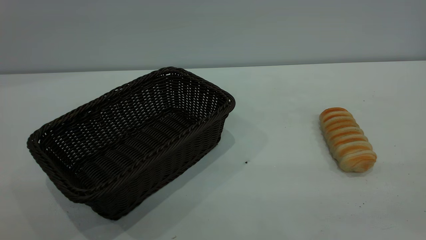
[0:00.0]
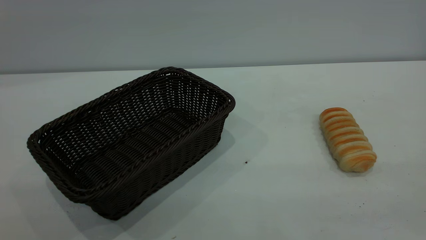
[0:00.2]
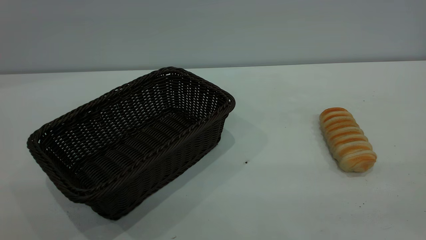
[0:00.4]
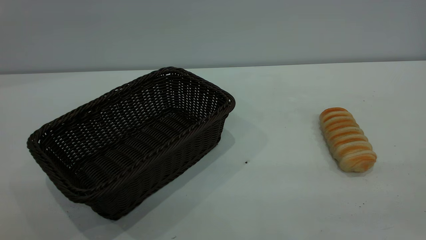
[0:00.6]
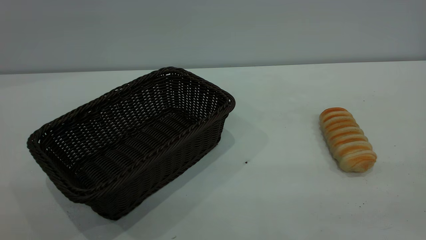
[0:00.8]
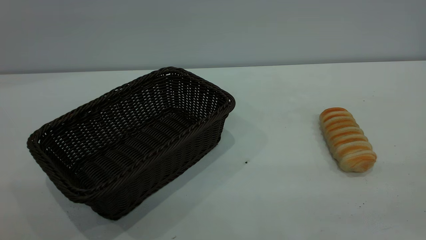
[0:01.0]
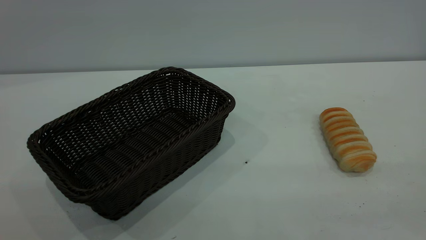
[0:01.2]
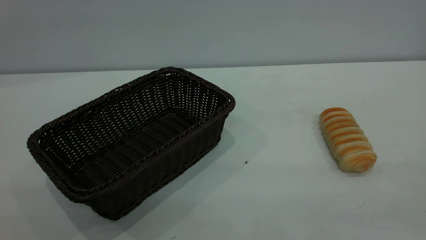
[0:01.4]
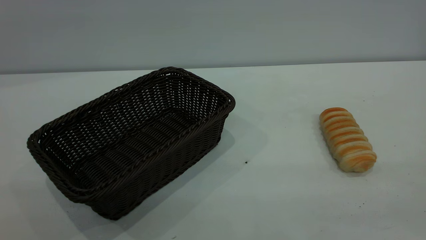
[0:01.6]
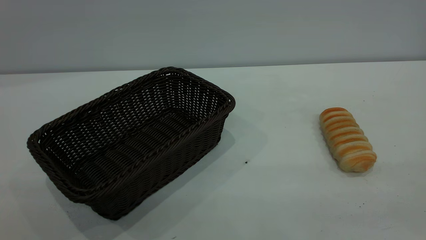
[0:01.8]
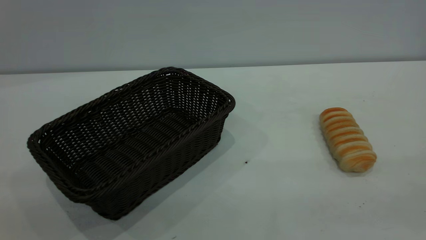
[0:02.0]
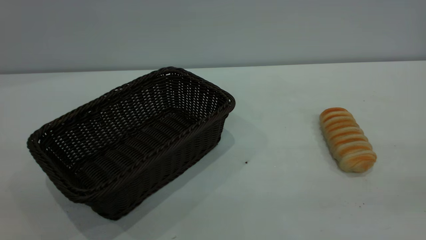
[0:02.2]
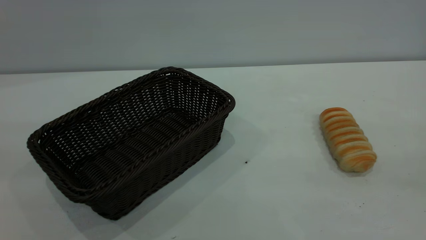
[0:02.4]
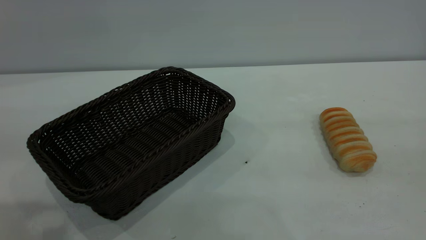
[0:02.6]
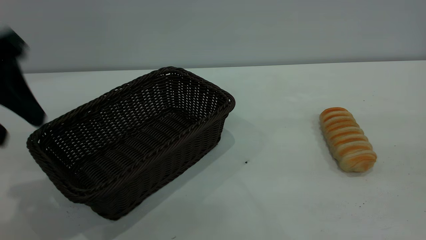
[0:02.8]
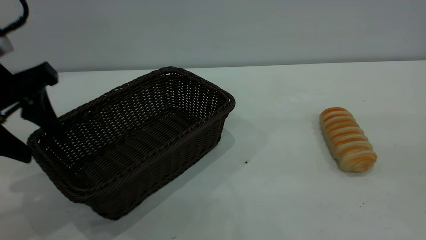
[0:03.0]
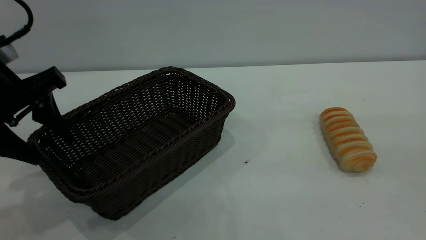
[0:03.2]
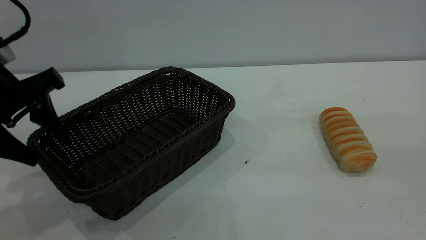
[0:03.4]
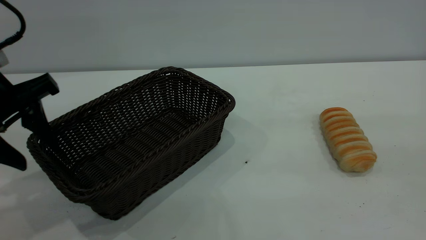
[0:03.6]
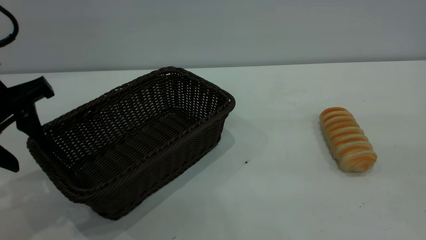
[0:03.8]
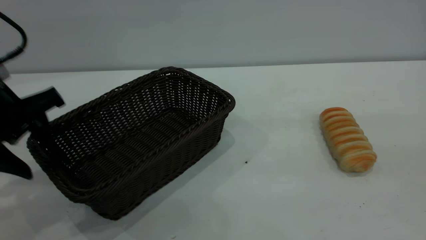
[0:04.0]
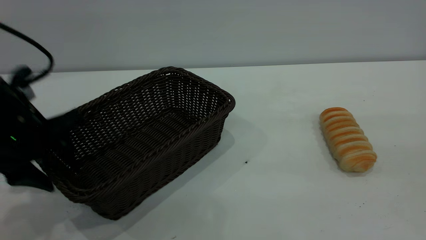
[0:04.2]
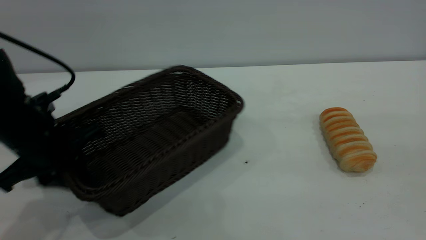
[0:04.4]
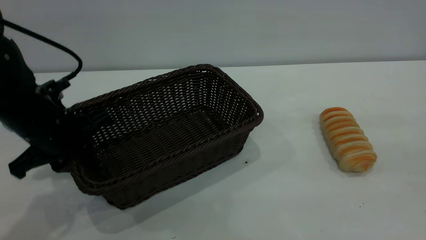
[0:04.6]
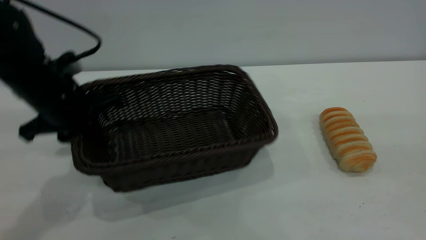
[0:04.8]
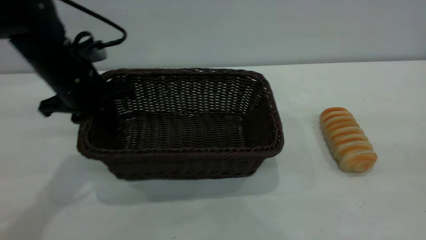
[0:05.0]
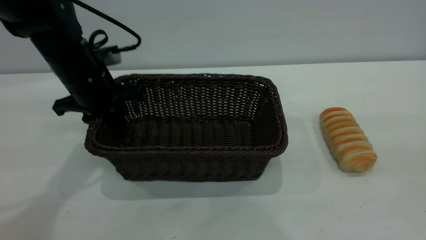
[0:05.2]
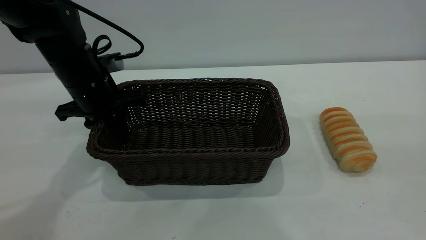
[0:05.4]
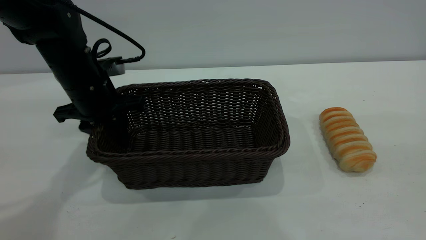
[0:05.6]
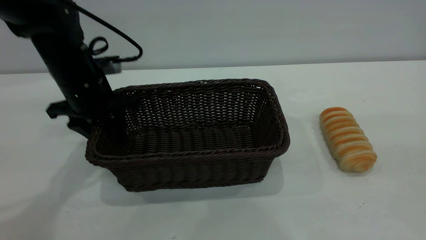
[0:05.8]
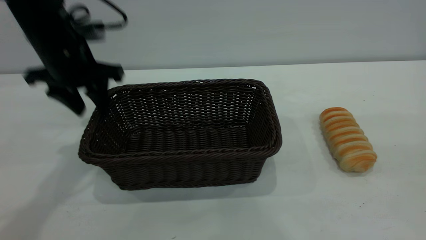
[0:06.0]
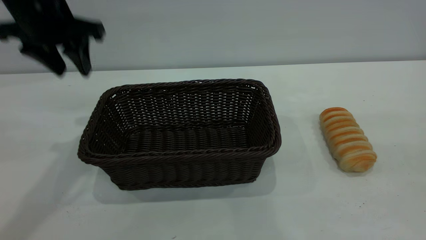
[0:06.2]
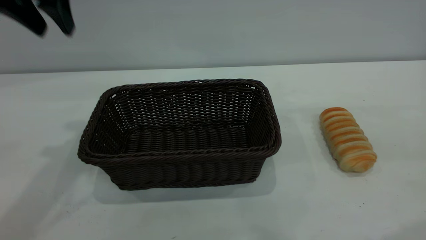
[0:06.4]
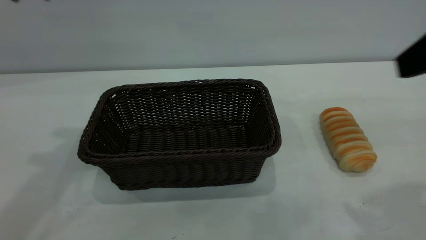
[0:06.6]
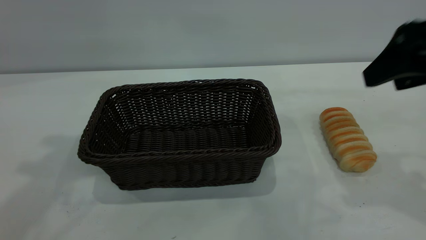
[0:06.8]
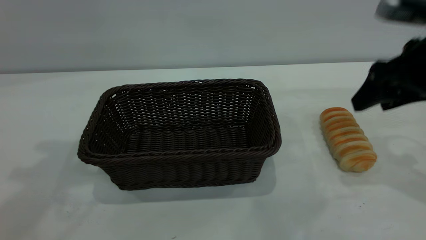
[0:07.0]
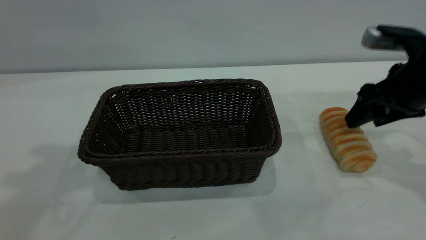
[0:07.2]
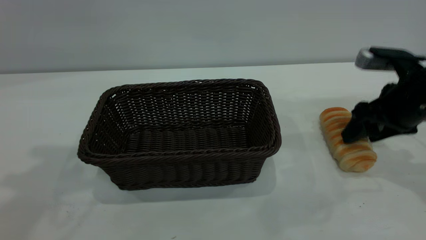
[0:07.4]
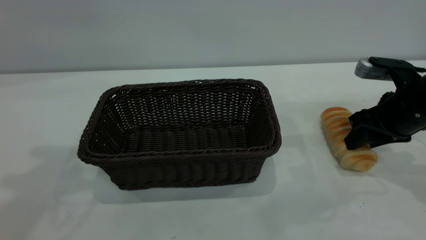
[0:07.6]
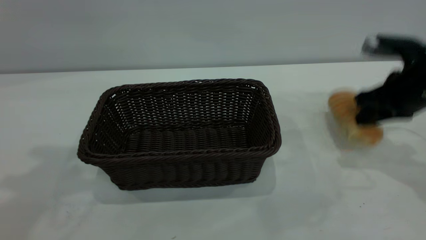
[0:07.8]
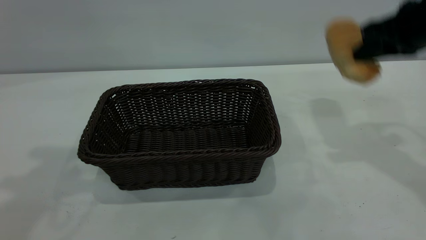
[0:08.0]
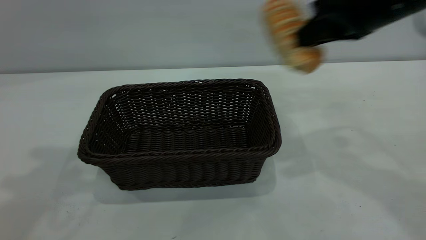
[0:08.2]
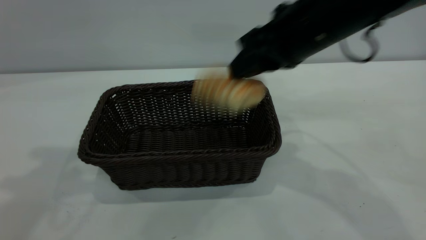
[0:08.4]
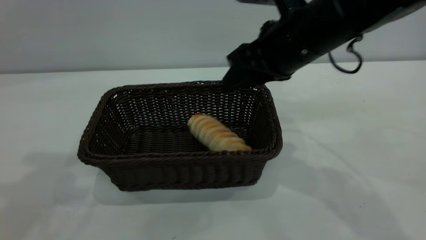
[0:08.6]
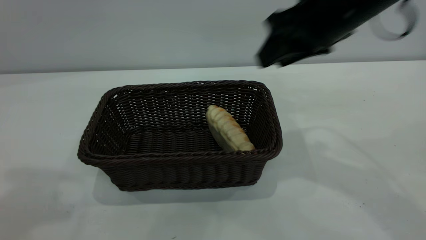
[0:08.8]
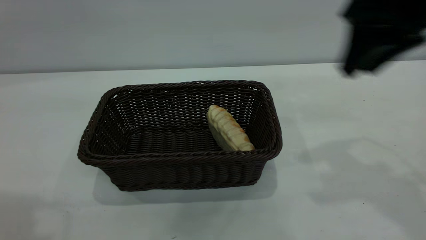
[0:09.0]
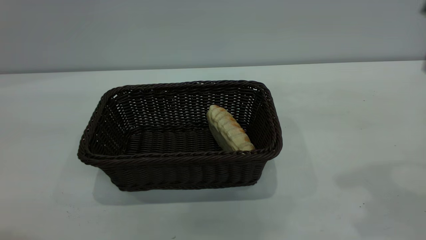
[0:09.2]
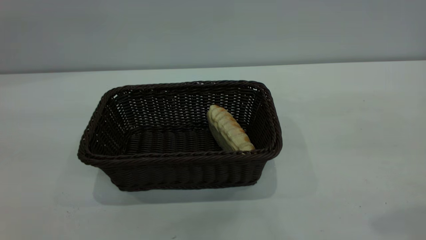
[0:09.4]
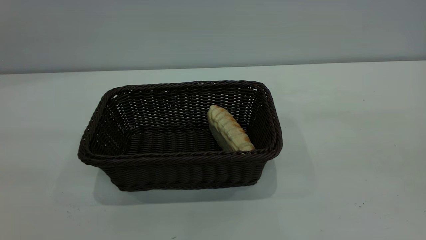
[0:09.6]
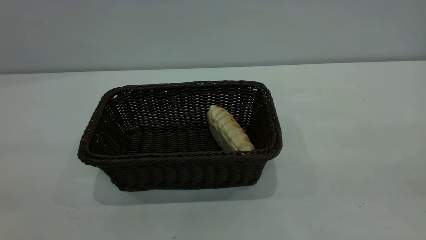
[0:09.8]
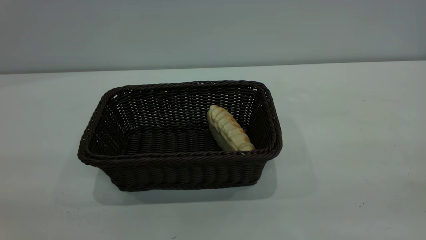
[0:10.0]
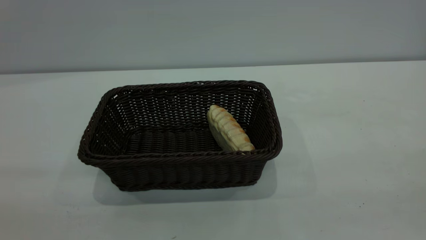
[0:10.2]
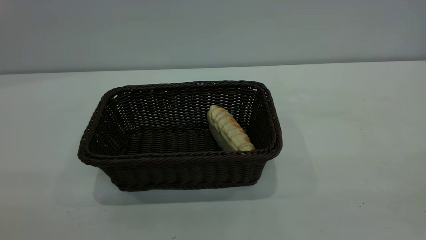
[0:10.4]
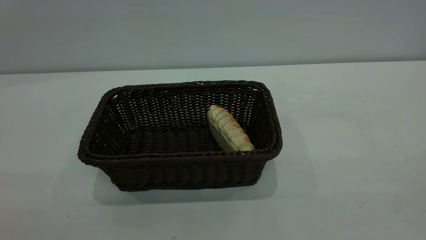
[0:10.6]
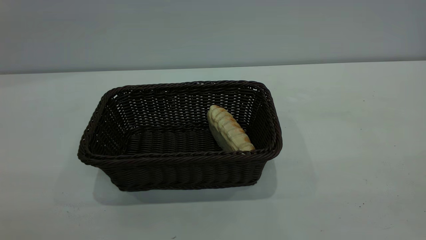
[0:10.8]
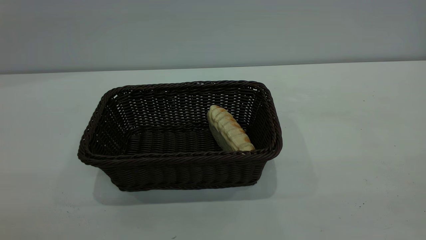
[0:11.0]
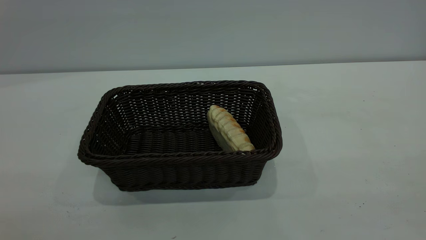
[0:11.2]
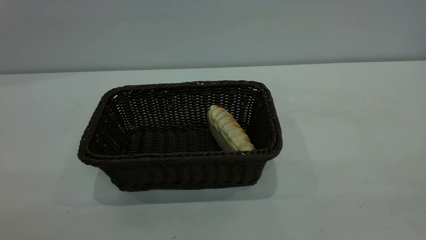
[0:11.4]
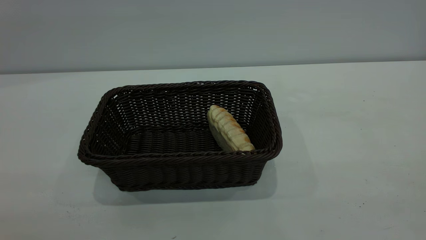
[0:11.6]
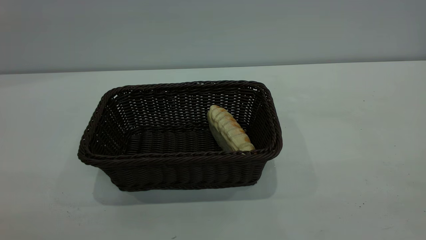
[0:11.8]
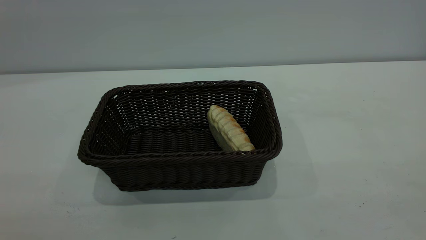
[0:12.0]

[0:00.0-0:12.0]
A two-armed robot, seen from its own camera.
Task of the whole recording: One hand grasps the black basket and places it in the middle of the table, while the other hand picks up the long bread and puts it into the black basket.
Step, 0:00.0 to 0:06.0: Move the basket to the center of view.
Step, 0:08.0 to 0:08.8: place the bread into the basket.
0:00.0 to 0:01.6: Both grippers stay put.
0:01.6 to 0:03.0: The left gripper moves forward and downward, approximately 30 cm.
0:03.0 to 0:04.4: The left gripper travels downward by some 10 cm, and closes its fingers.
0:04.4 to 0:06.0: The left gripper shifts roughly 15 cm forward and upward, and opens up.
0:06.0 to 0:07.6: The left gripper travels upward and backward by about 25 cm. Meanwhile the right gripper goes some 35 cm downward and forward, and closes up.
0:07.6 to 0:09.0: The right gripper goes about 20 cm upward, and closes, then opens again; the left gripper heads backward, covering about 10 cm.
0:09.0 to 0:10.4: The right gripper is displaced backward by roughly 30 cm.

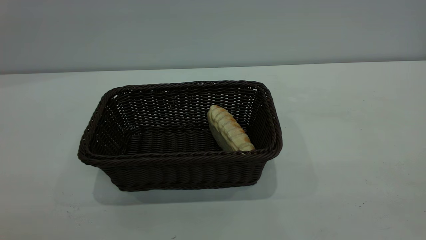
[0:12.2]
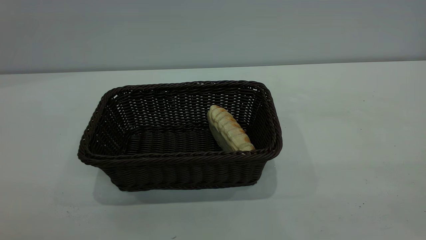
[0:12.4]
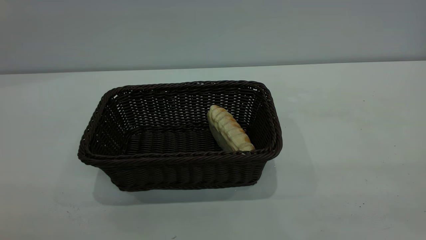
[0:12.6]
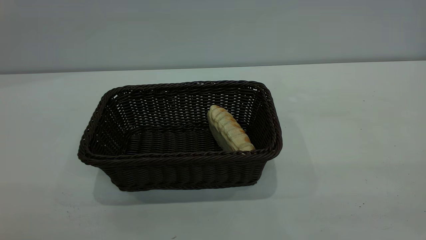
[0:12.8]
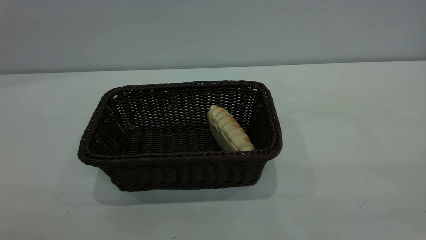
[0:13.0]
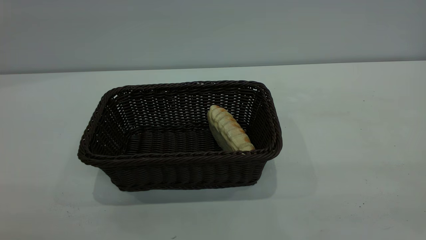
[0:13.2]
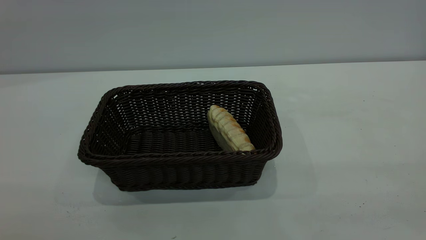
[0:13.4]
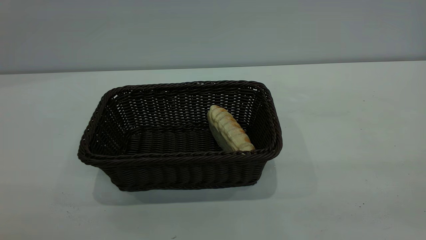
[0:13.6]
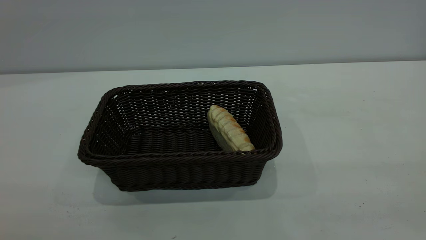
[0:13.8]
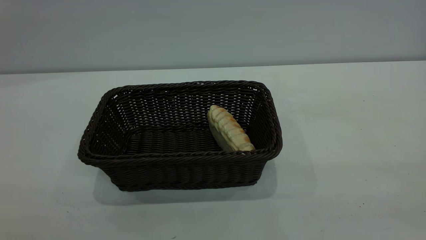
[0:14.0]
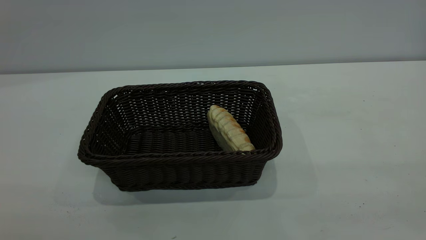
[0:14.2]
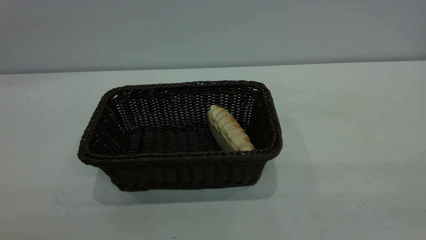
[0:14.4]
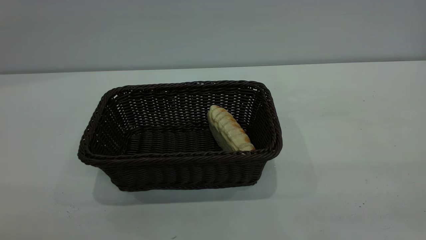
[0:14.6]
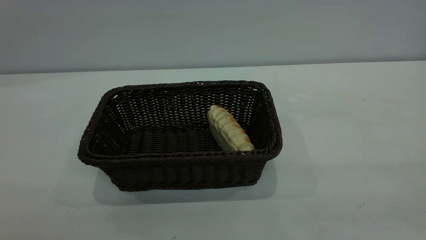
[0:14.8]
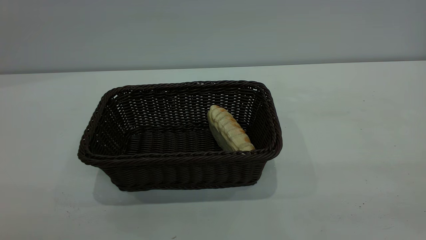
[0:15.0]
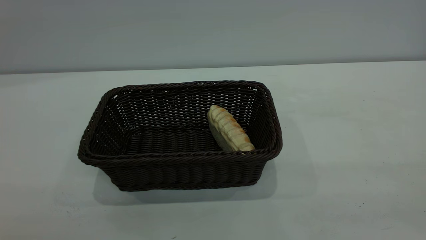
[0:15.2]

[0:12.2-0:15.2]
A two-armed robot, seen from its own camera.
Task of the whole recording: One hand grasps the black basket and places it in the middle of the table, while the other hand picks up the long bread and puts it into the black basket.
0:13.8 to 0:15.2: Both grippers stay put.

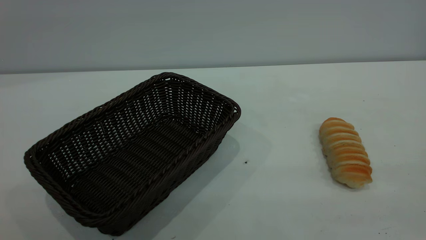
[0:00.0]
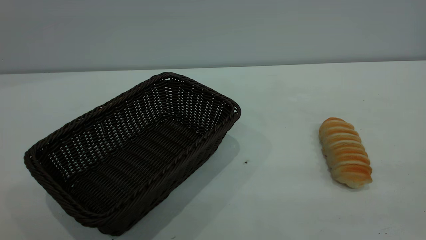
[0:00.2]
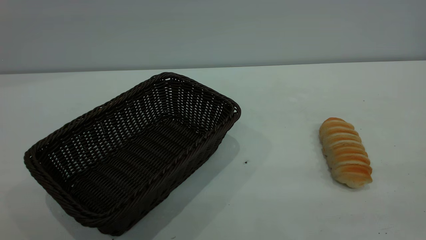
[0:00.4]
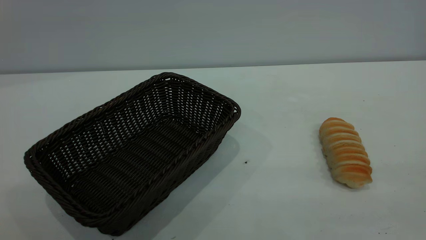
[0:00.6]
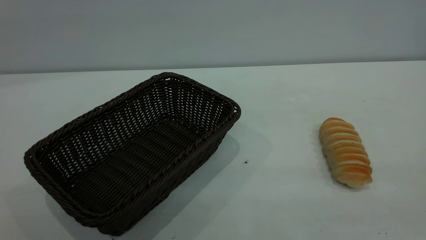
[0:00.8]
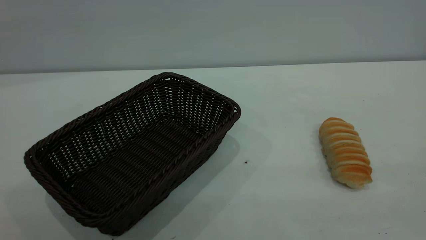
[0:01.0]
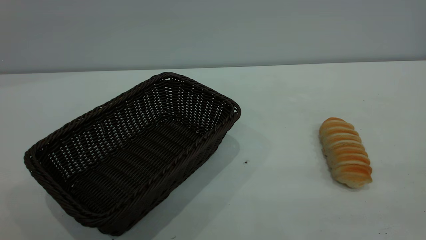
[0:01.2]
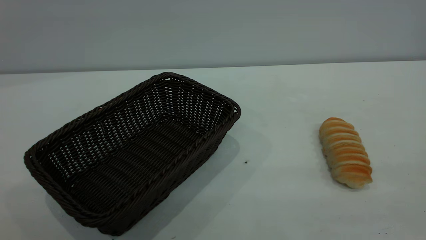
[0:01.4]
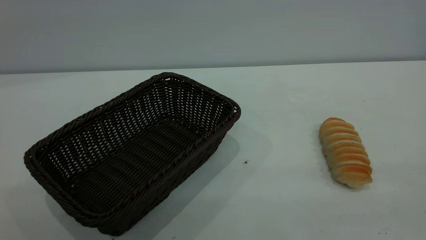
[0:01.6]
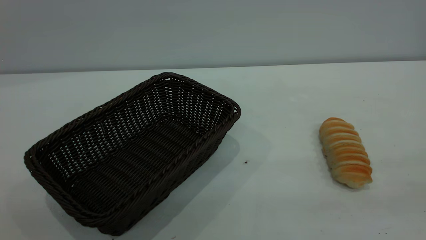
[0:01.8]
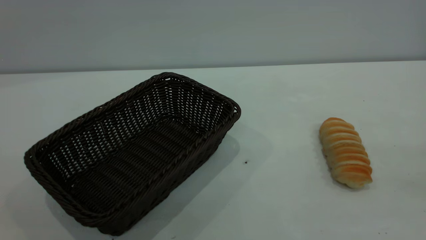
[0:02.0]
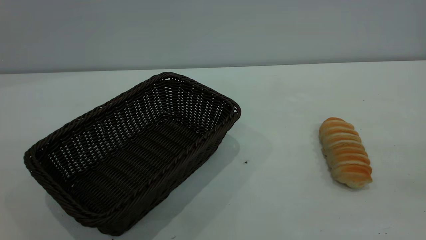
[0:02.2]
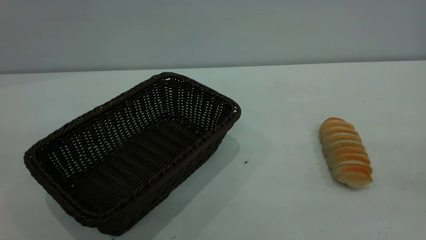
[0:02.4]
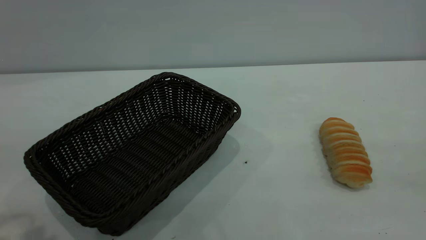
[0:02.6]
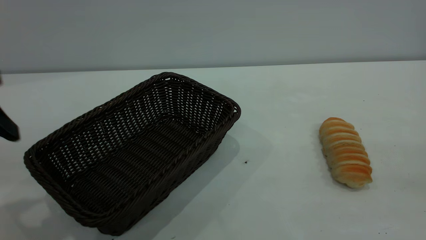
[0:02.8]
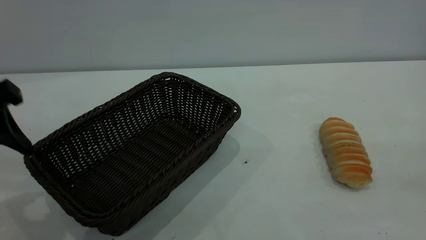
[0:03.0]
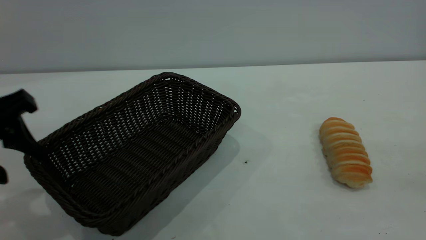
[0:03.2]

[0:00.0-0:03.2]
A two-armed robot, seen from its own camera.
Task of the whole recording: One hand grasps the black basket and places it in the middle of the table, while the other hand picks up the long bread and puts it into the black basket.
0:01.6 to 0:03.2: The left gripper travels forward and downward by some 30 cm.
